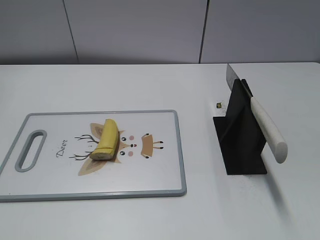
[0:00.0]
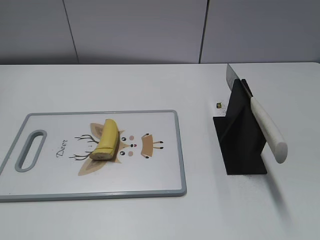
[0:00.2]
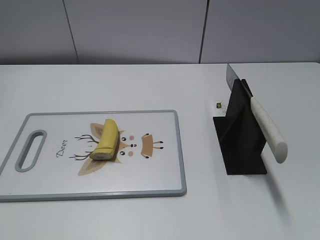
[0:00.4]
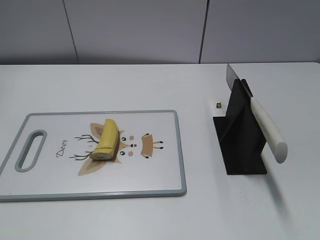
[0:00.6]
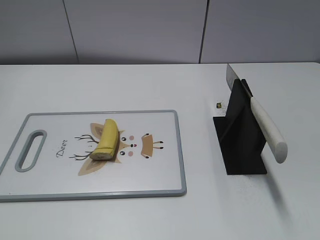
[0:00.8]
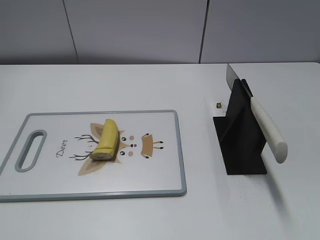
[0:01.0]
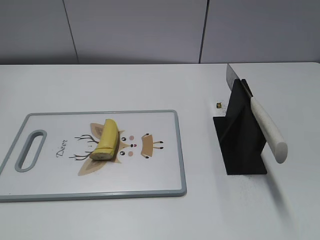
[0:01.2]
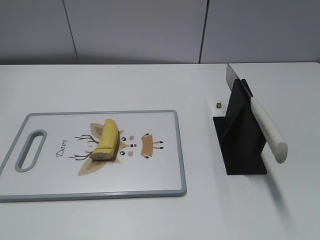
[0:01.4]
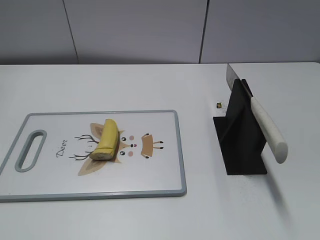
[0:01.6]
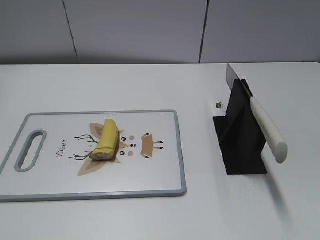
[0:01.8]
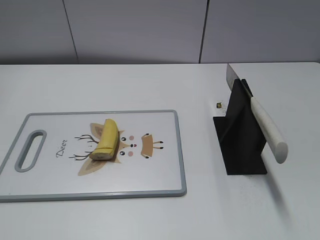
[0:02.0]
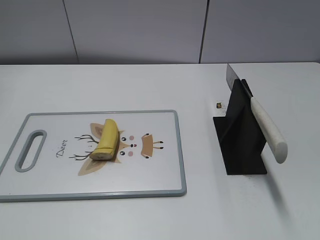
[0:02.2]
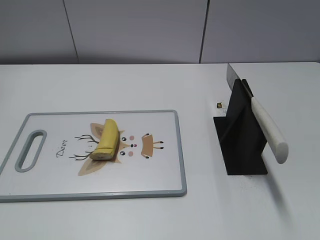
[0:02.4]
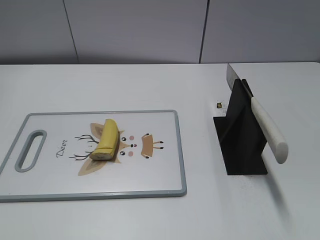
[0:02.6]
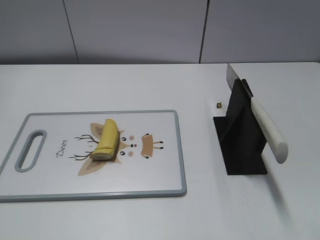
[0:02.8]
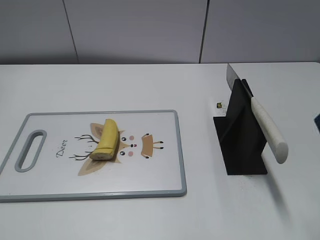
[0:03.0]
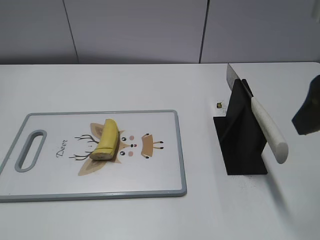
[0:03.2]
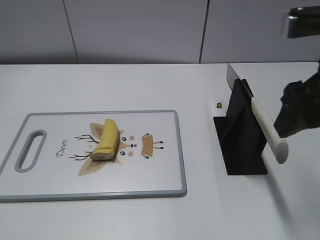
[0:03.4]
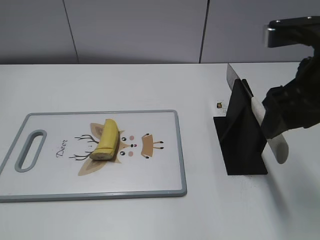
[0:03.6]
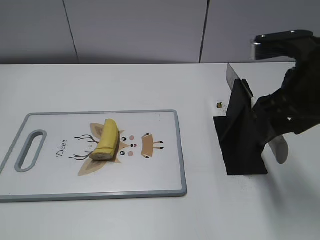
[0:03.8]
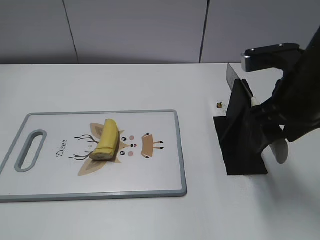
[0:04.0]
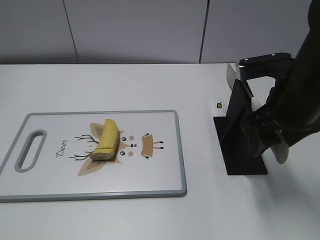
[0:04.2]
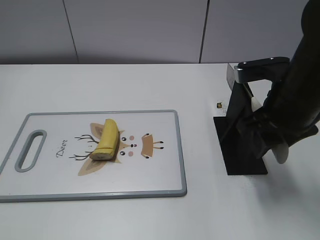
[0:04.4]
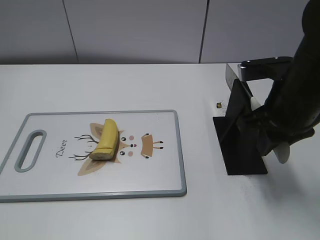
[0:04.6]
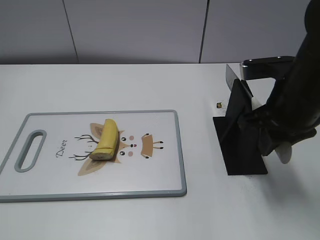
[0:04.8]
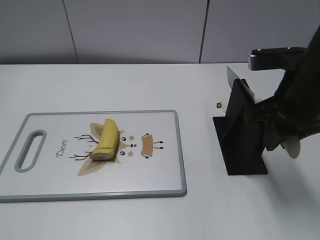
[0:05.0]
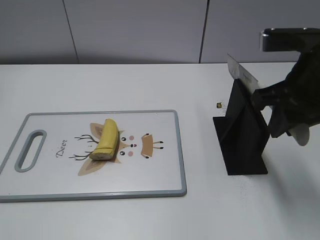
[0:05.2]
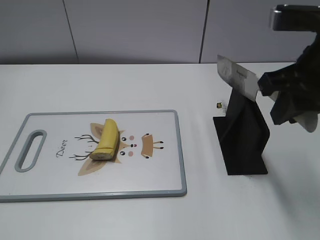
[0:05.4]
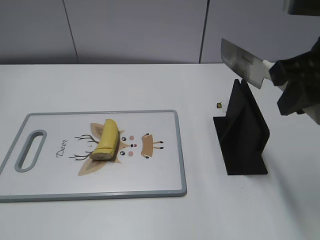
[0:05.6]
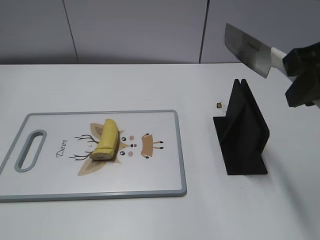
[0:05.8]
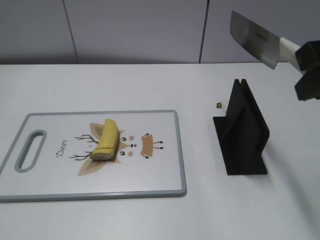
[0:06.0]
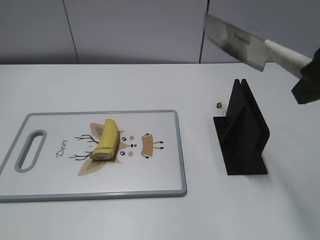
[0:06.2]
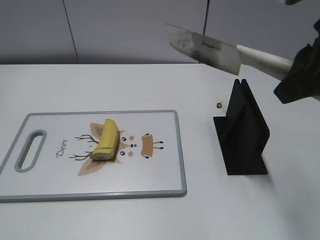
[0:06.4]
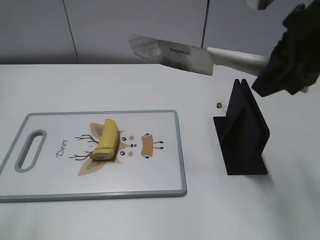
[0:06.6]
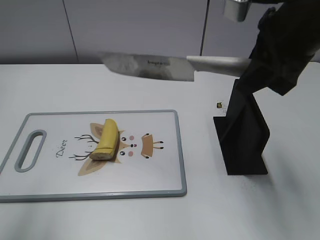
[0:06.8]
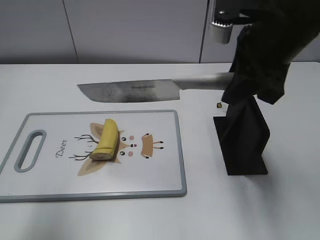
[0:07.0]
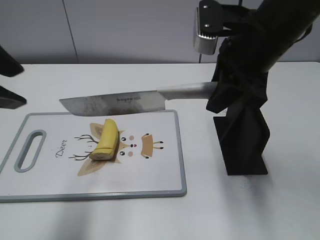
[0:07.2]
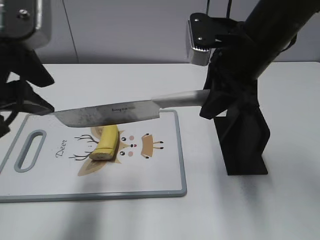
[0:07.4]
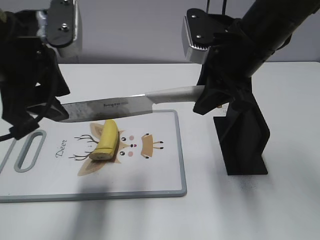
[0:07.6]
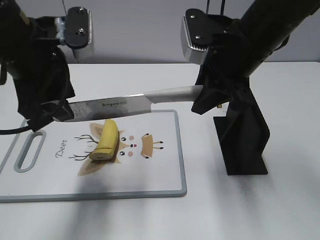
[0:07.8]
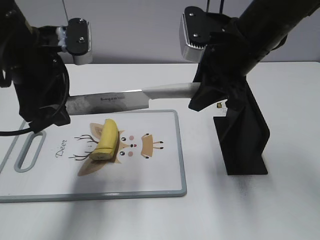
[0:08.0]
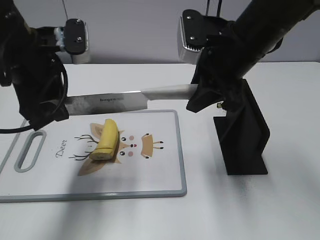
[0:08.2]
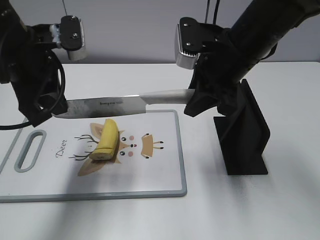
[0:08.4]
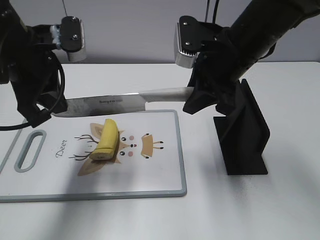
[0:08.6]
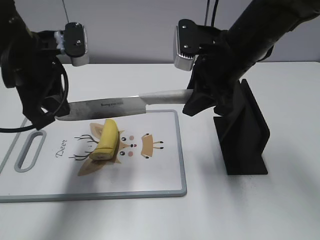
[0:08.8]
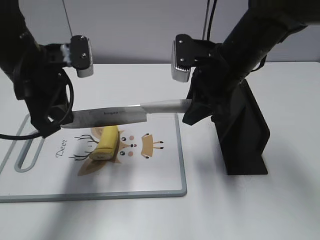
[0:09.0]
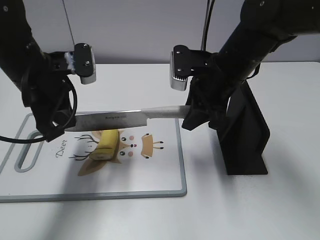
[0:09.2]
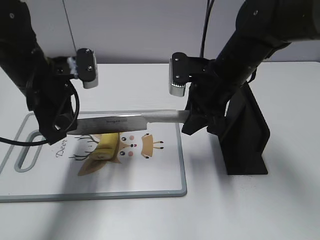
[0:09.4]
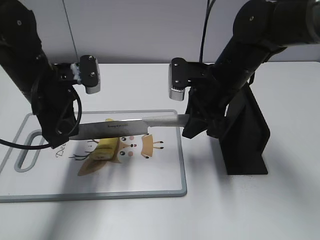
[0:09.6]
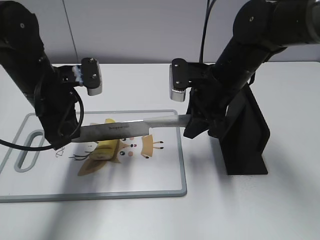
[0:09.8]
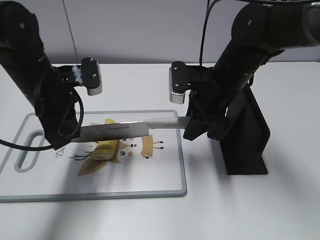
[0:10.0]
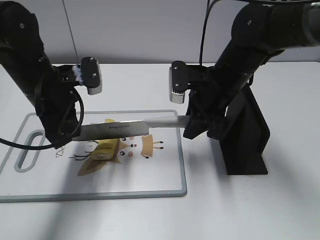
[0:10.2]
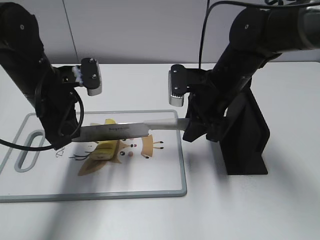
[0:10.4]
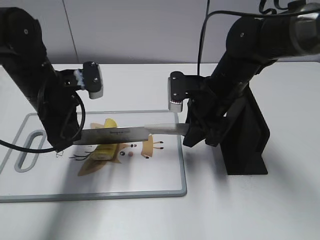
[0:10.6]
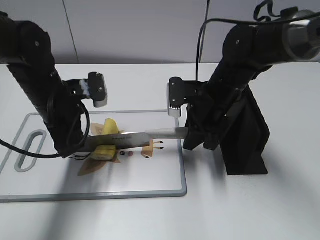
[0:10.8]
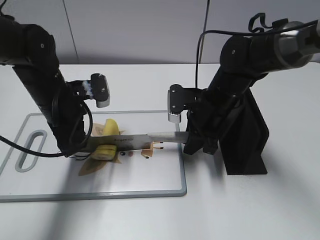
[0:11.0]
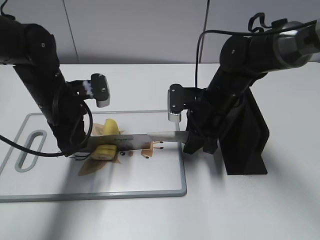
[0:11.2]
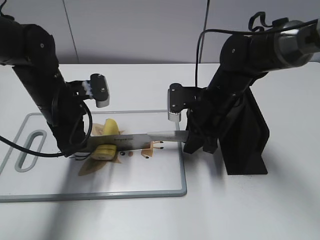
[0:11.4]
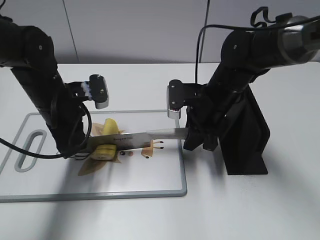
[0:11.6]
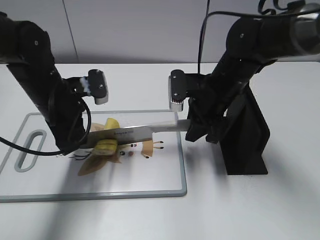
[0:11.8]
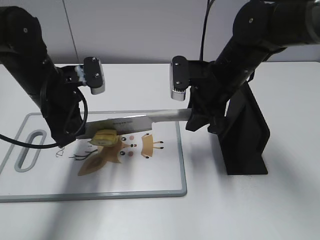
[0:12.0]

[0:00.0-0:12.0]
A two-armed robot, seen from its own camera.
Task of the whole recording: cut banana.
Step, 0:00.0 to 0:05.2: Grab the knife handle with your right hand.
Step, 0:05.4 to 0:10.4: Lift the knife with your right hand.
0:03.0 to 0:04.4: The right gripper is displaced downward and forward by approximately 15 cm, and closes.
0:04.4 to 0:06.0: The right gripper goes about 15 cm upward and backward, and closes its fingers.
0:06.0 to 0:07.6: The left gripper is displaced forward and to the right by some 30 cm. The right gripper moves forward, to the left and downward, about 15 cm.
0:07.6 to 0:09.0: The left gripper shifts roughly 10 cm downward and forward, and closes up; the right gripper heads downward, covering roughly 5 cm.
0:09.0 to 0:10.4: The right gripper shifts approximately 5 cm downward.
0:10.4 to 0:12.0: The grippers make only small movements.

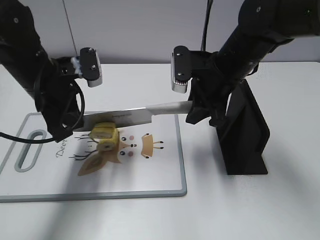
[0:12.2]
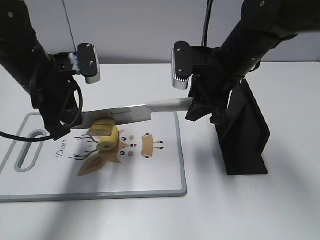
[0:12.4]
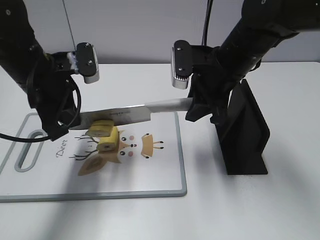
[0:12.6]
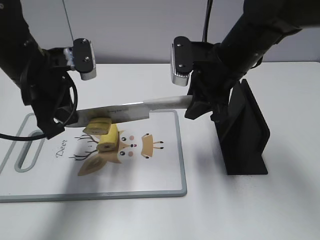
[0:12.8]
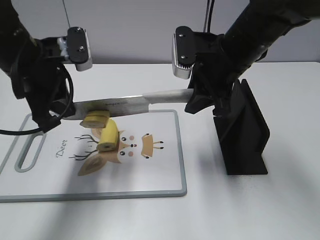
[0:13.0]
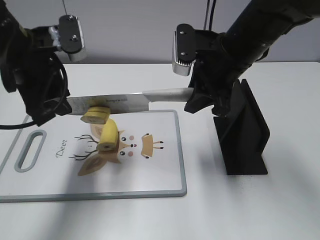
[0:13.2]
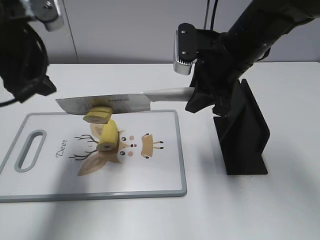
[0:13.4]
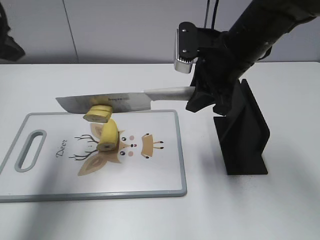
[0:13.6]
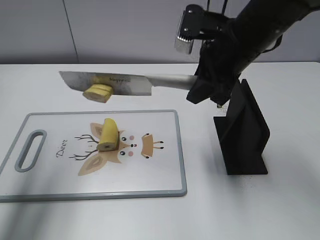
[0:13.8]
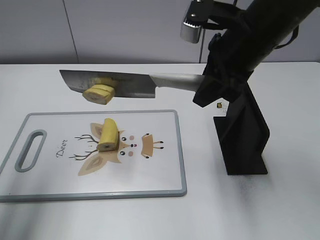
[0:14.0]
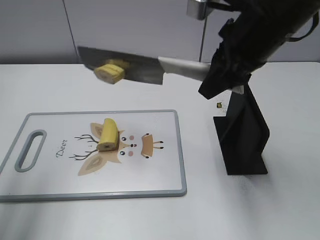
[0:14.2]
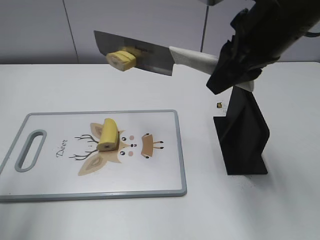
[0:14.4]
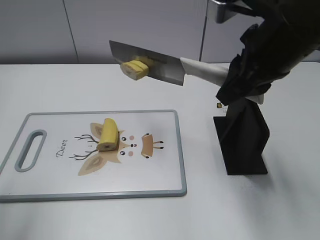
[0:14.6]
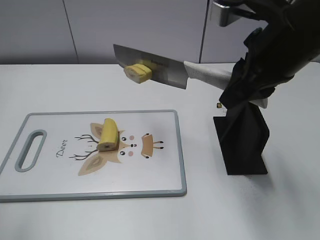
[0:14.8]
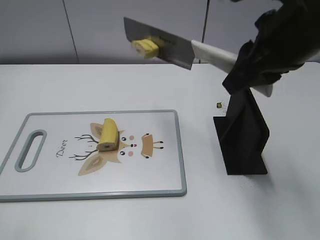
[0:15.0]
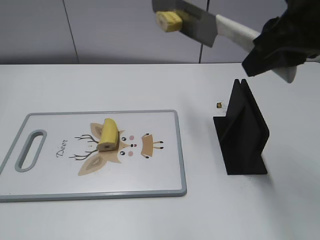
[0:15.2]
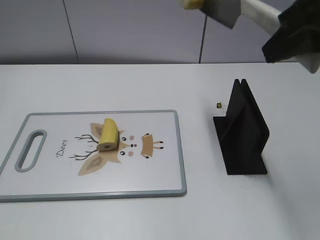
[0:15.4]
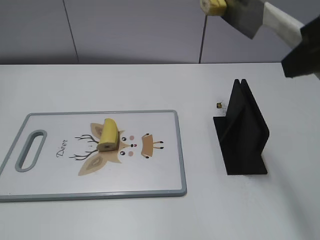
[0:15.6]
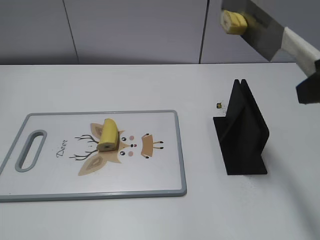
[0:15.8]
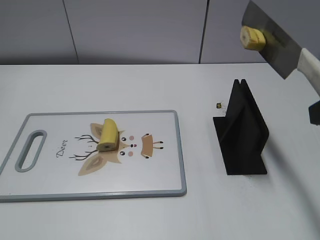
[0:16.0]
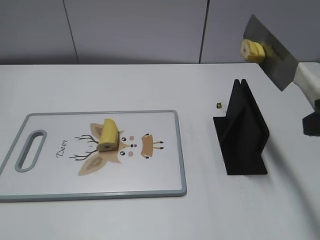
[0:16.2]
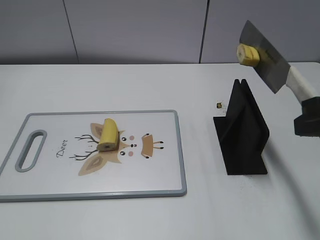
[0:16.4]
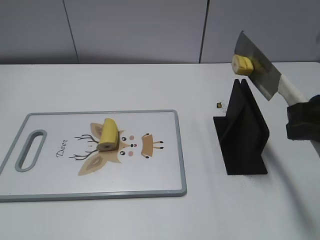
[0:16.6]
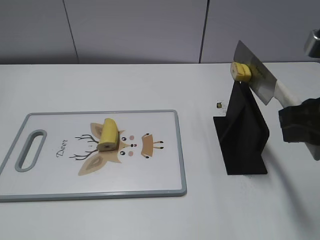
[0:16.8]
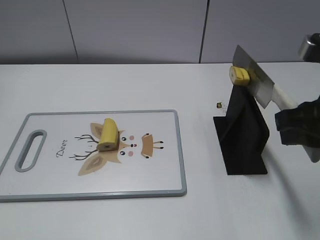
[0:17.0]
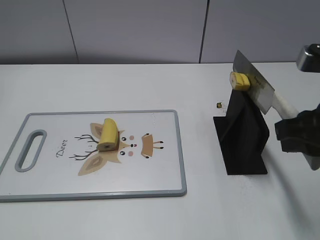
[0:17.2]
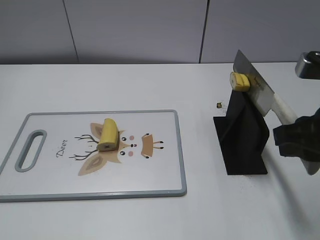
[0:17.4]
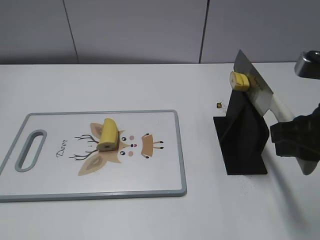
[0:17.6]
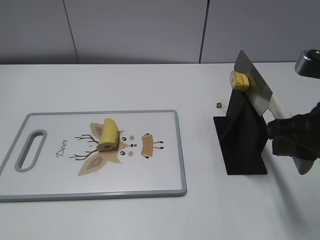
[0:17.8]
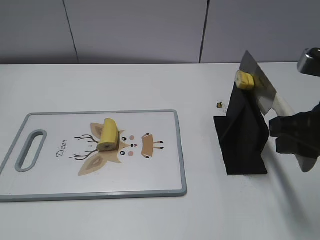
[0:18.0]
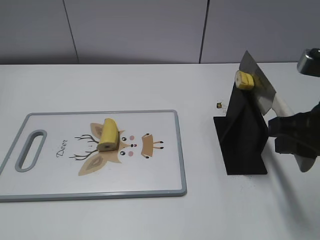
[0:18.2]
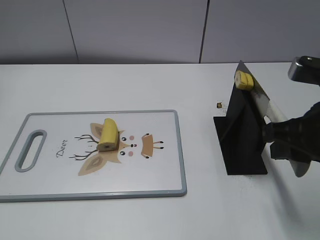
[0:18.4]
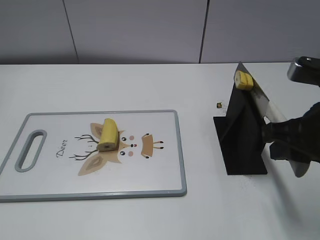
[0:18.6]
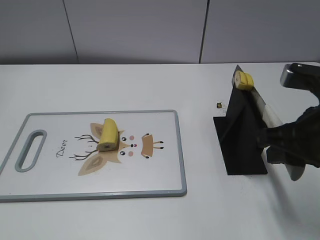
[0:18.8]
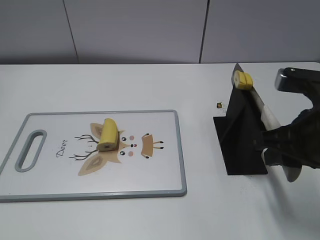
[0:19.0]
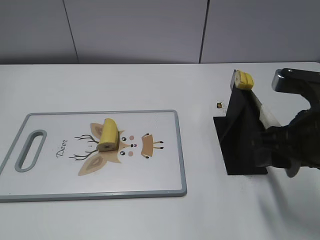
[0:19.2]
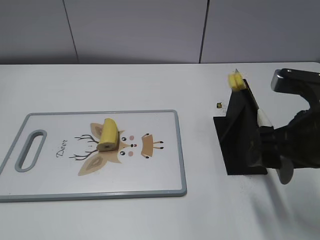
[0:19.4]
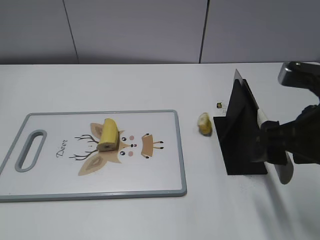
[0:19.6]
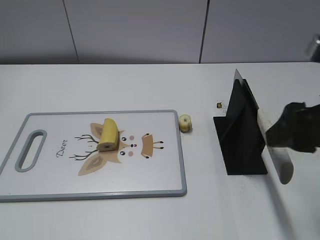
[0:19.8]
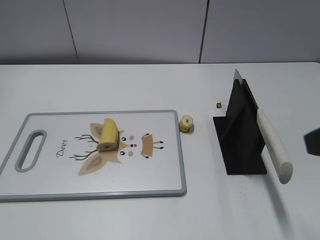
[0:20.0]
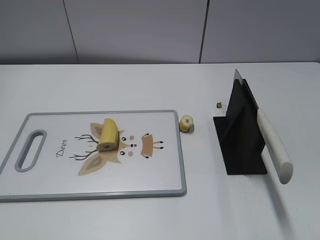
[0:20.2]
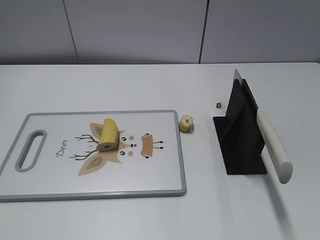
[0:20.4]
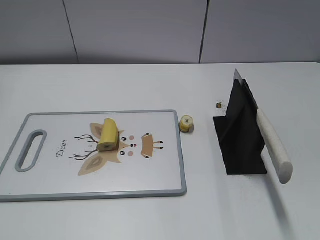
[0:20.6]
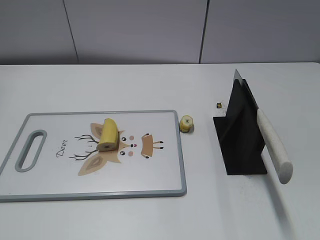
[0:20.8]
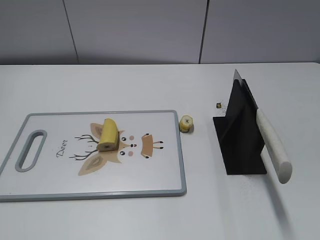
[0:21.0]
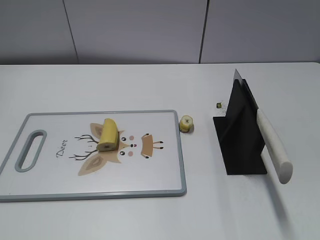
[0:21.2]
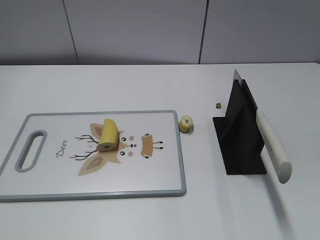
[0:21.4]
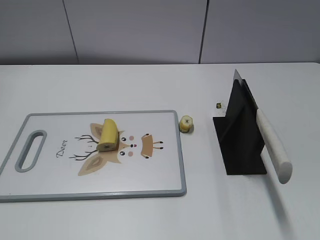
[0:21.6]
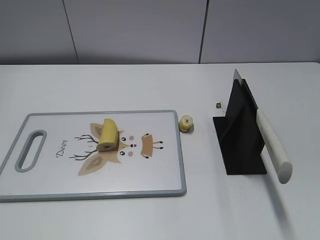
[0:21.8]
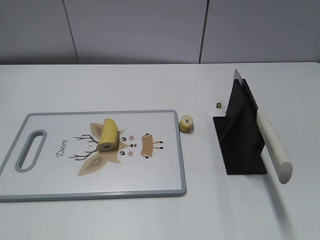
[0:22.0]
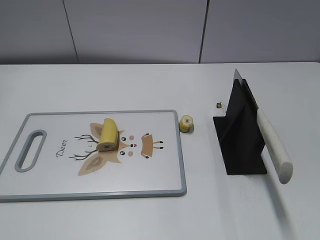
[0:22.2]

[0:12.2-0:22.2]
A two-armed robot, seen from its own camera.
Task of the whole recording: cut banana.
Step, 0:12.2 to 0:14.2: Cut the banana with your right hand.
Step, 0:14.4 to 0:16.2: Lift the knife with your right hand.
Step, 0:16.4 to 0:22.2: Place the knife on the storage rack with your right hand.
0:12.2 to 0:13.6: The left gripper moves upward and to the left, approximately 15 cm, and opens its fingers.
0:13.6 to 0:15.0: The left gripper travels backward by approximately 20 cm, while the right gripper shifts roughly 10 cm upward and backward.
0:15.0 to 0:16.4: The right gripper travels backward and to the right by roughly 10 cm, while the left gripper moves backward and downward, some 10 cm.
0:16.4 to 0:18.0: The right gripper moves about 5 cm.
0:18.0 to 0:19.4: The right gripper opens.
0:19.4 to 0:20.8: The right gripper is displaced backward and to the right by roughly 20 cm.
